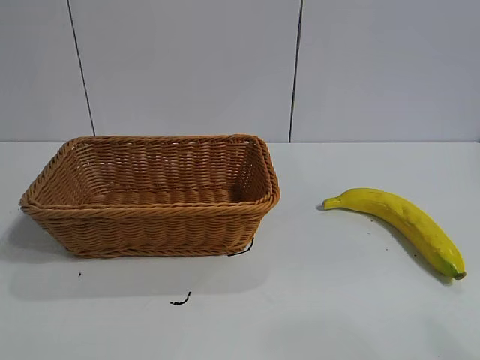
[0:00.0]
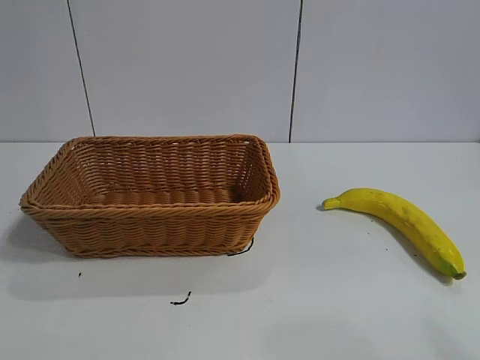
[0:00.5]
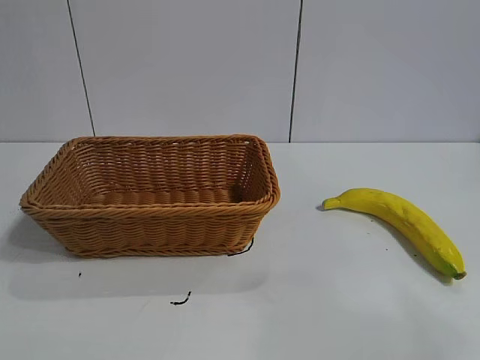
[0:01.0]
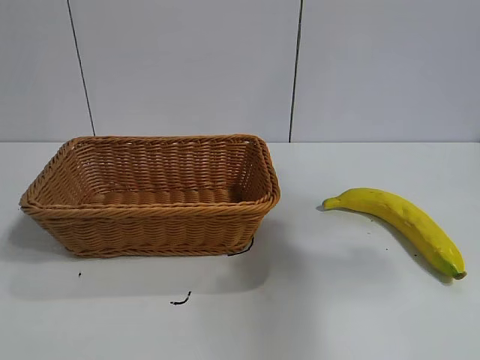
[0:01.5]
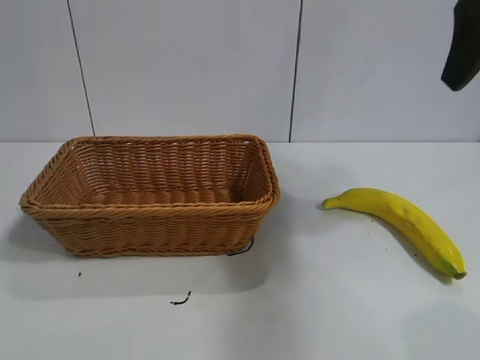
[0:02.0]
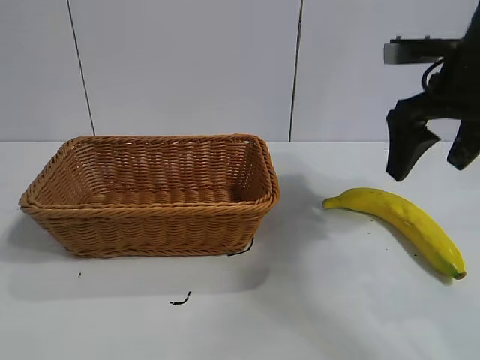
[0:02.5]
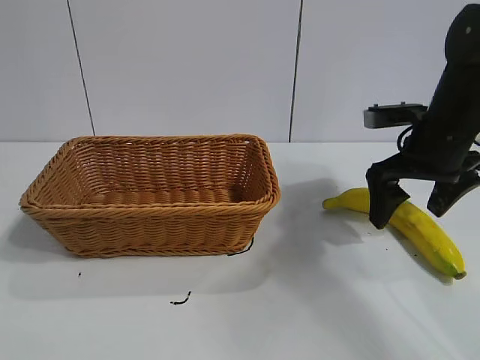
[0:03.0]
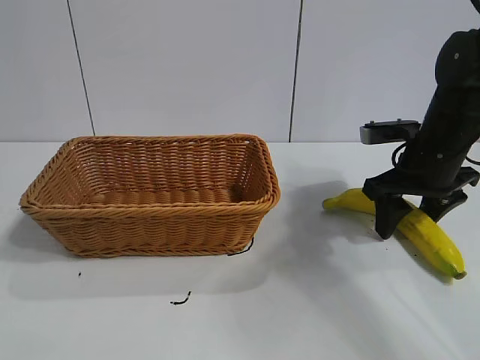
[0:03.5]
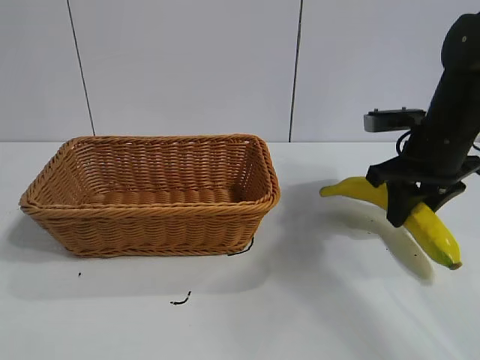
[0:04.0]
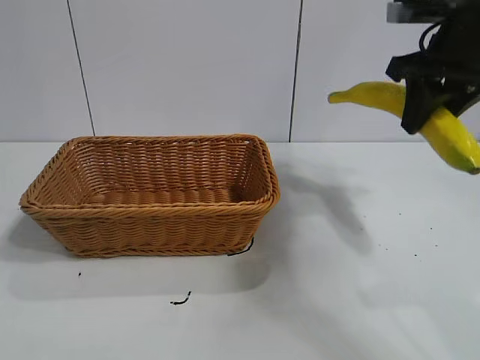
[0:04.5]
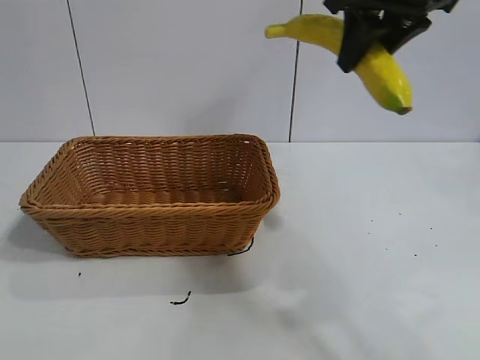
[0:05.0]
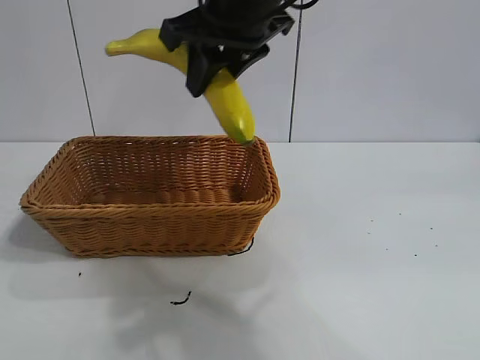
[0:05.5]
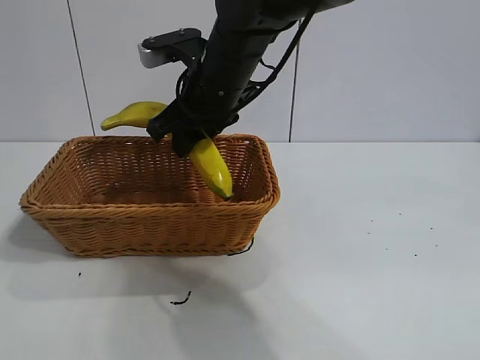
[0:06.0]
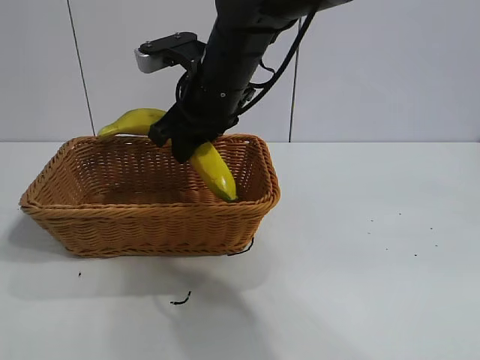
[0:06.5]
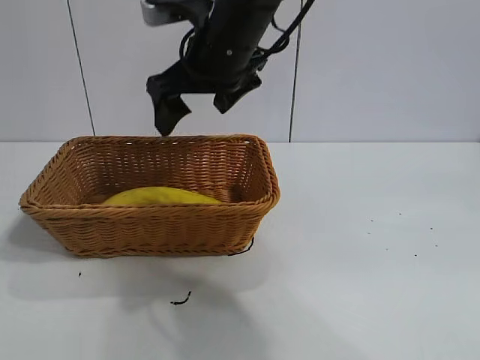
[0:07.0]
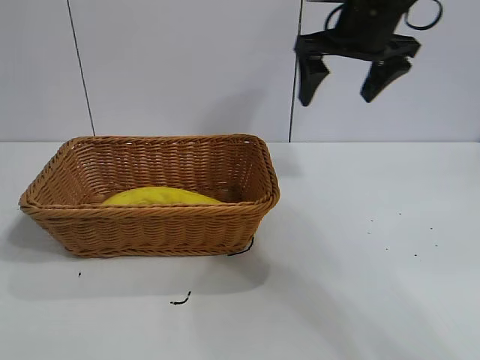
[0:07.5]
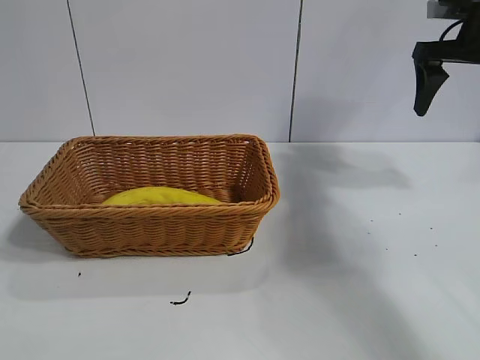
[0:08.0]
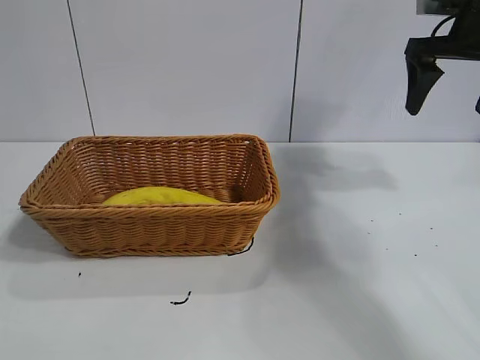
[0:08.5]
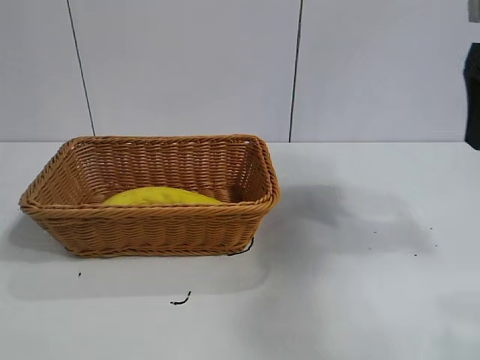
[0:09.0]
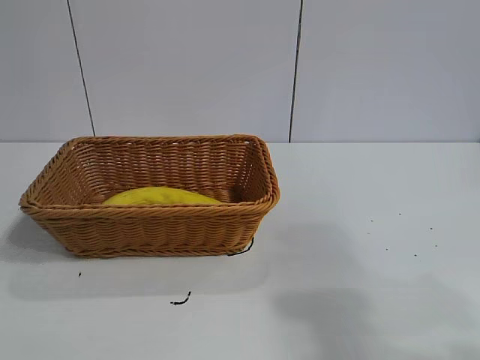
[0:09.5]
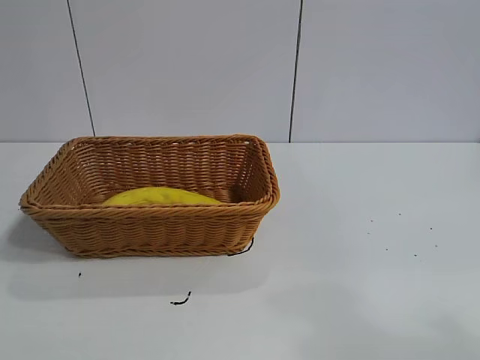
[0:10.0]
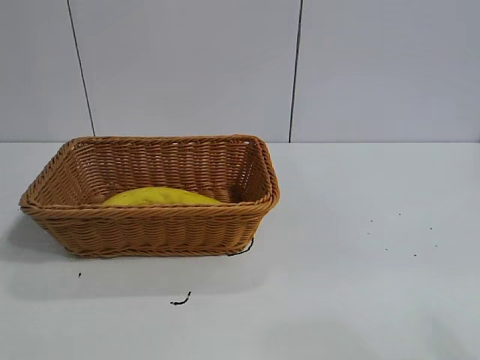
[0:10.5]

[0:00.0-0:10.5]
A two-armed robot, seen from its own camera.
Task of the whole recording: pick up the banana and put it into the basket.
Step, 0:02.0 to 0:04.0: Grasp the banana with right gripper.
Step, 0:04.5 to 0:06.5: Place the banana in the basket with right gripper.
